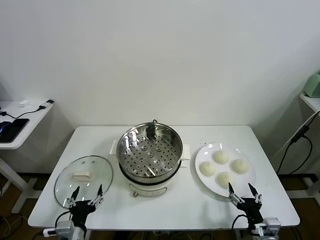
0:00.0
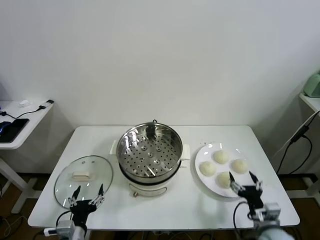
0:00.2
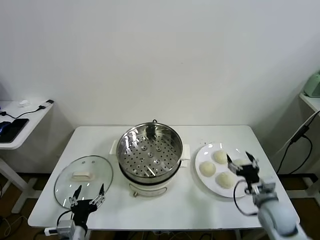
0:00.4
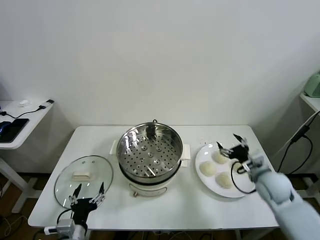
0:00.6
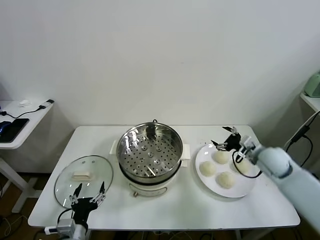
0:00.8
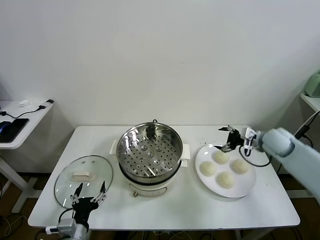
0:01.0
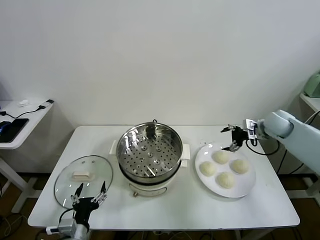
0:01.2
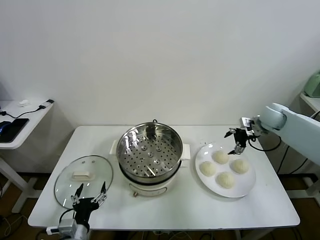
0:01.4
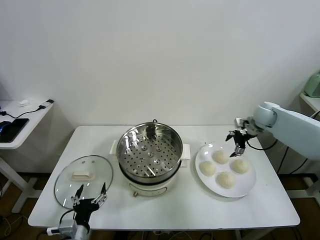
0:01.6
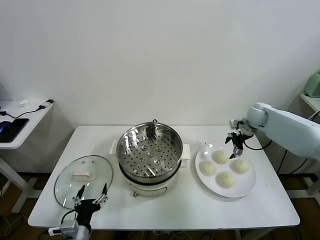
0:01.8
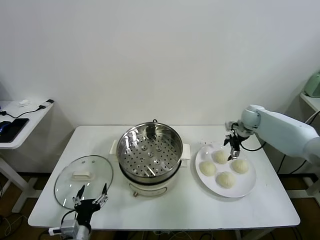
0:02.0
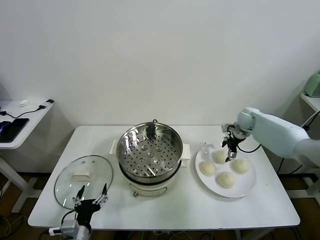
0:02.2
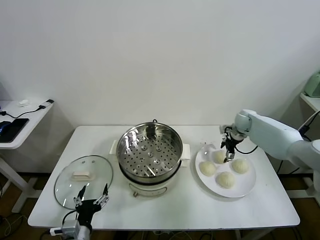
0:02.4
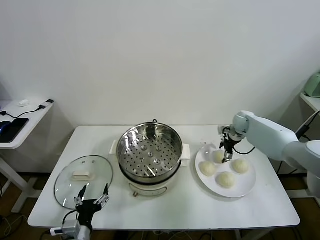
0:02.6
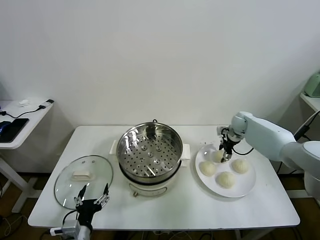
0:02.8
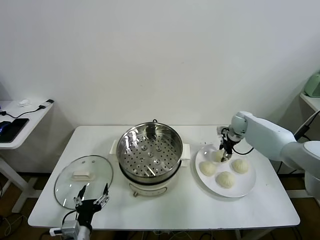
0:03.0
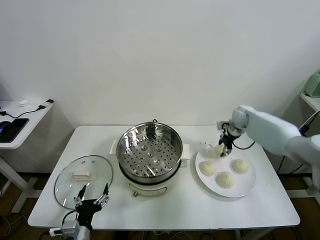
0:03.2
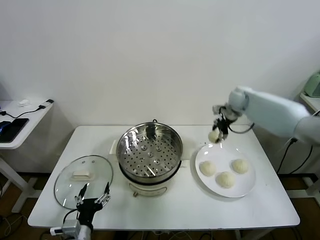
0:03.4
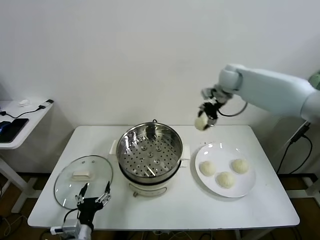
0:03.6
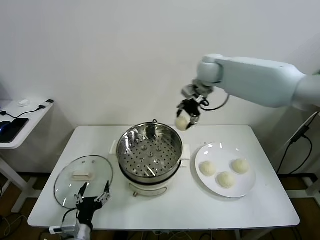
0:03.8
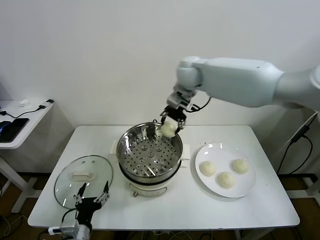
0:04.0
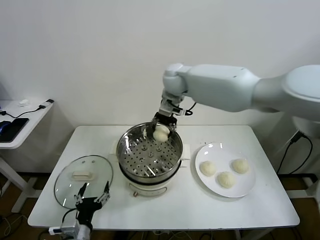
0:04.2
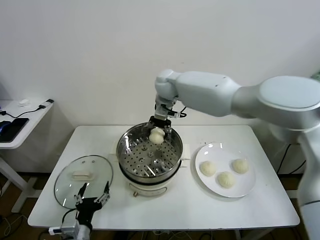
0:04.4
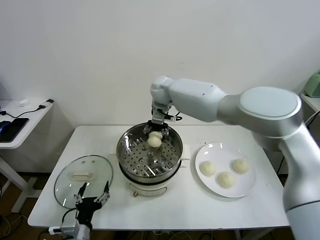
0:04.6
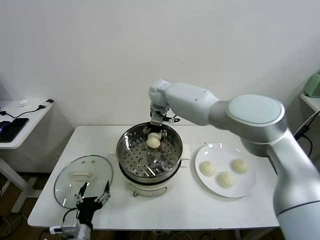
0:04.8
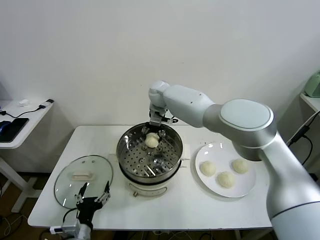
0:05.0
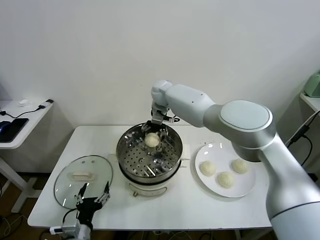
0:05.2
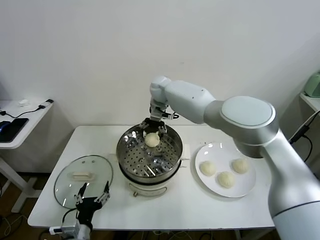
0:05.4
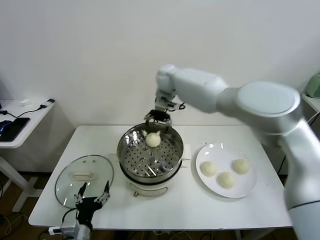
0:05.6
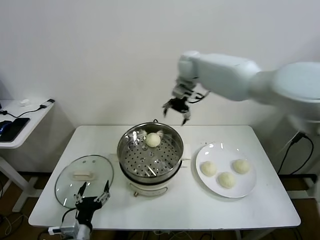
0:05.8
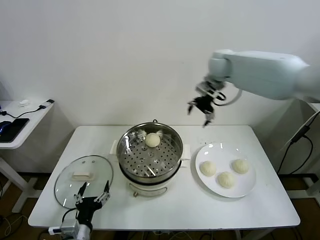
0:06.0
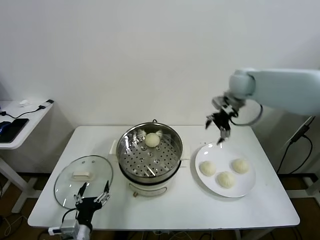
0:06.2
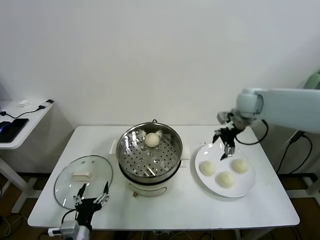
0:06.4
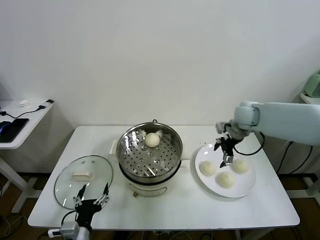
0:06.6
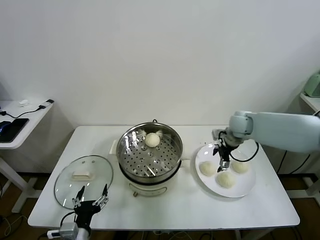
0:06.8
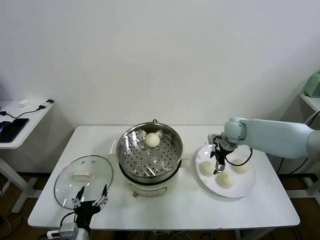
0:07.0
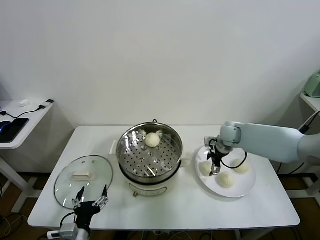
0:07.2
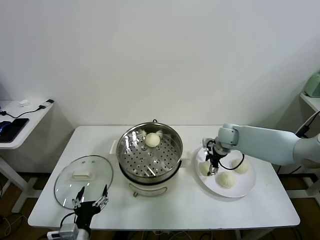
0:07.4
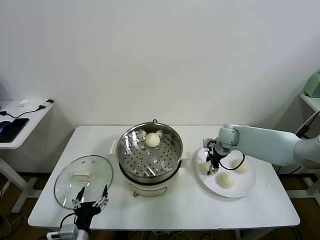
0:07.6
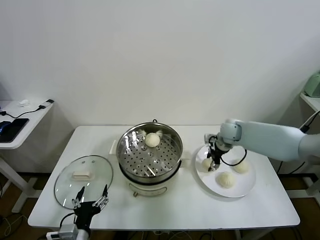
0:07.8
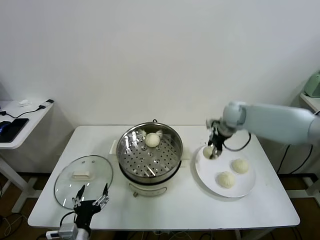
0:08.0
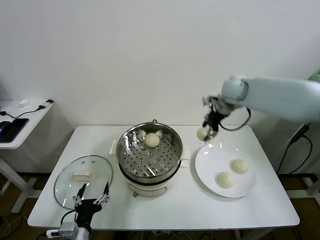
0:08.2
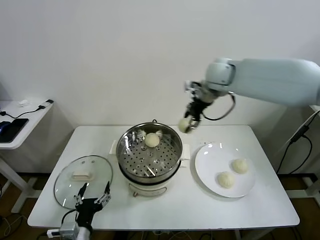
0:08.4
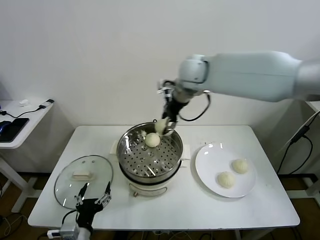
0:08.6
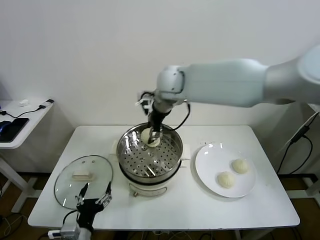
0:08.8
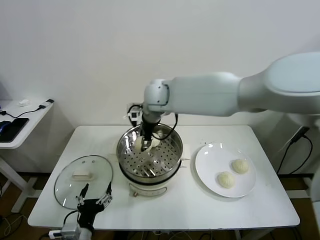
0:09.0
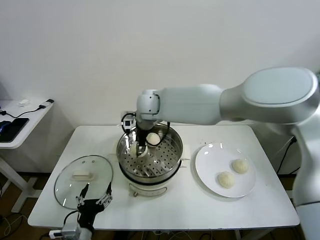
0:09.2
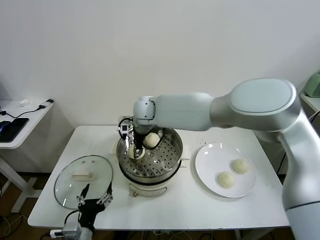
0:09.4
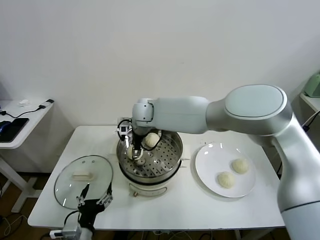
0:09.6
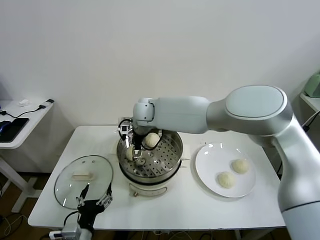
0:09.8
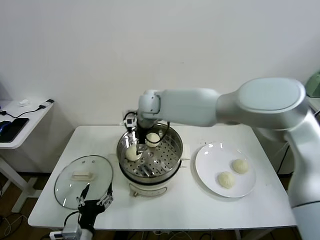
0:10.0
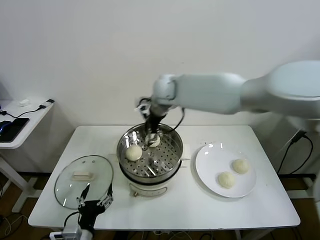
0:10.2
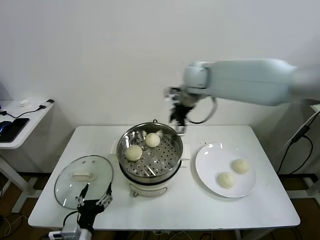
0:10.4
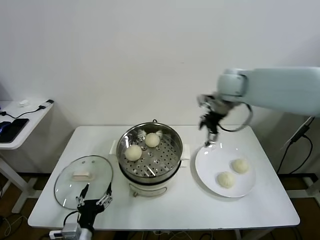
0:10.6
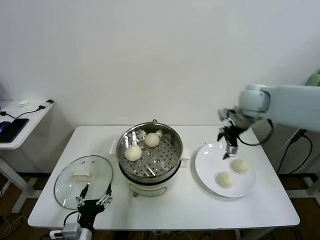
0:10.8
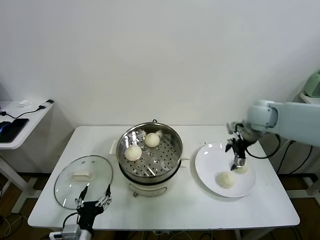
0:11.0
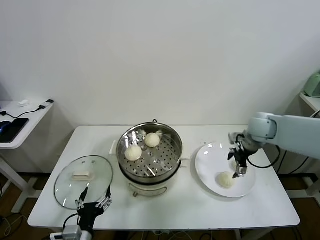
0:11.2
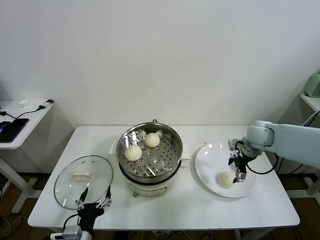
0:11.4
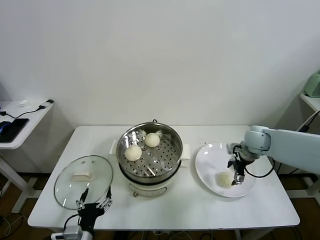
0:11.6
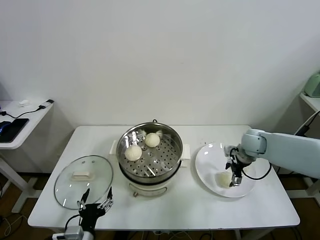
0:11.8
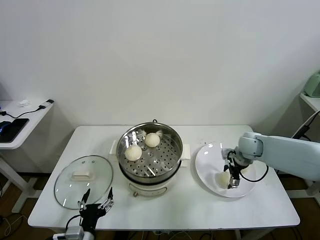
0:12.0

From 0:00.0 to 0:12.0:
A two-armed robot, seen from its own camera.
Task of the whole recording: take steamed baozi put them in steamer.
Step, from 0:00.0 to 0:02.6: Grasp the baozi in the plate with right gripper.
Step, from 0:03.0 to 0:05.2: Place the baozi on the steamer with right gripper.
Step, from 0:05.4 to 0:07.4: Grasp the baozi in the plate with right gripper.
Step, from 0:07.6 to 0:09.8: Place the baozi on the steamer with right gripper.
From 0:01.6 to 0:03.0: The right gripper travels downward by roughly 5 cm, and closes its fingers.
From 0:03.0 to 0:04.4: The right gripper goes approximately 40 cm to the left and upward.
From 0:04.4 to 0:06.0: The right gripper moves to the right, some 25 cm, and opens.
From 0:06.0 to 0:07.6: The right gripper goes some 25 cm downward, and closes.
From 0:07.6 to 0:09.0: The right gripper shifts about 35 cm to the left and upward.
From 0:09.0 to 0:10.4: The right gripper is displaced to the right by about 15 cm, and opens up.
From 0:10.4 to 0:12.0: The right gripper moves downward and to the right, roughly 30 cm.

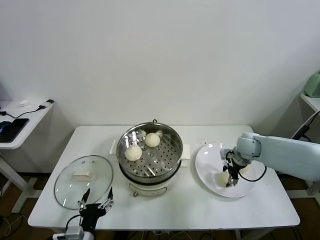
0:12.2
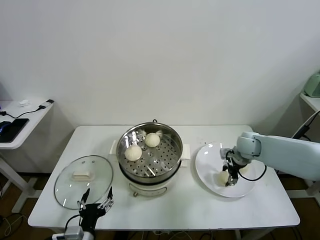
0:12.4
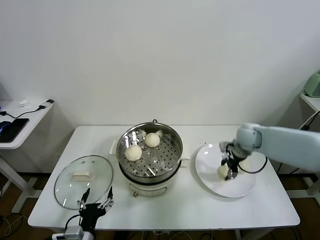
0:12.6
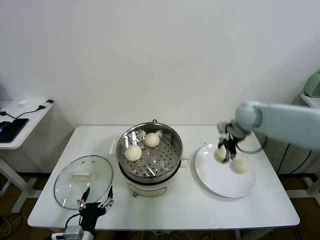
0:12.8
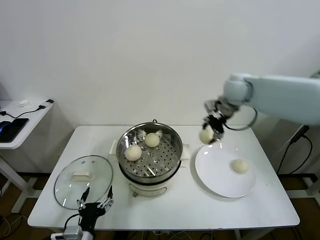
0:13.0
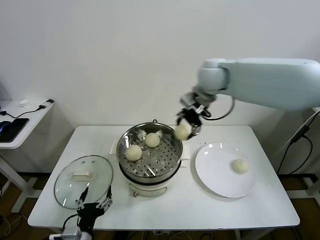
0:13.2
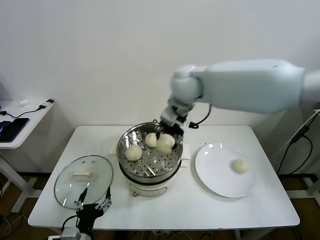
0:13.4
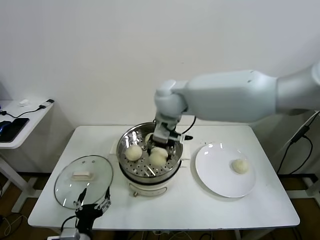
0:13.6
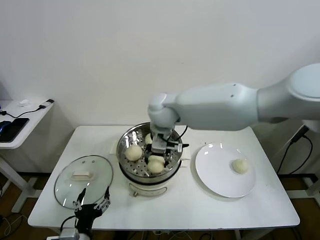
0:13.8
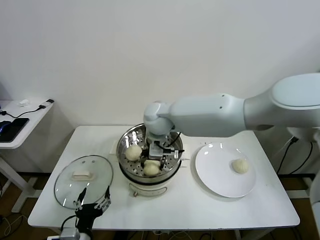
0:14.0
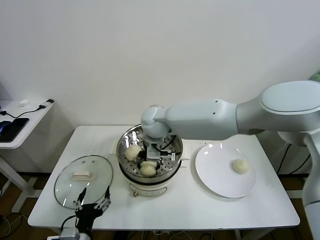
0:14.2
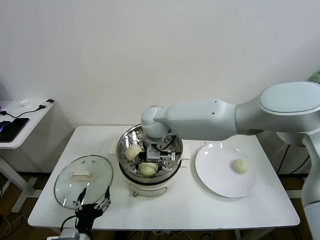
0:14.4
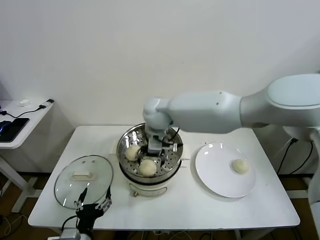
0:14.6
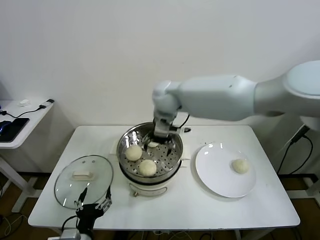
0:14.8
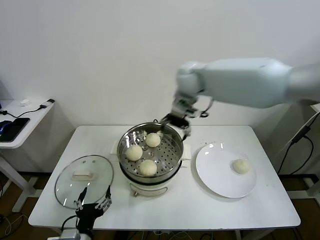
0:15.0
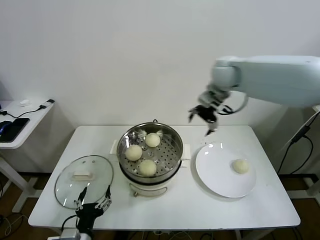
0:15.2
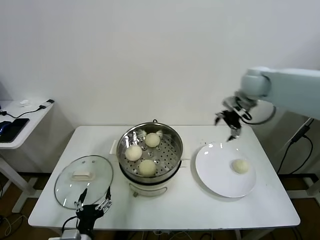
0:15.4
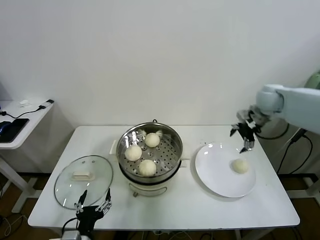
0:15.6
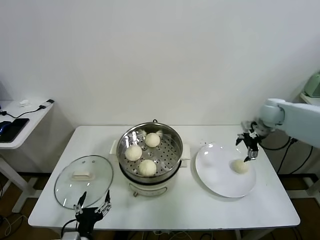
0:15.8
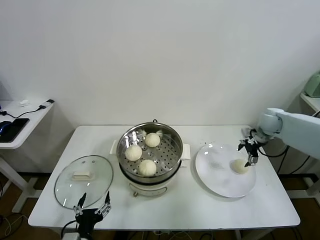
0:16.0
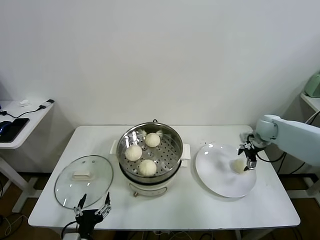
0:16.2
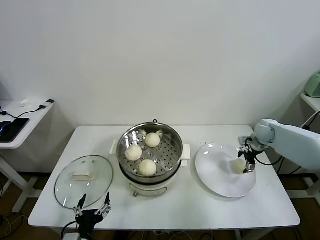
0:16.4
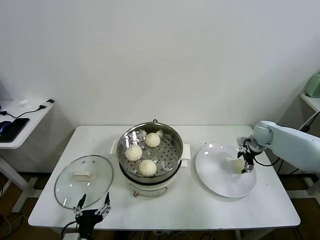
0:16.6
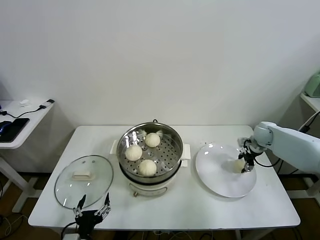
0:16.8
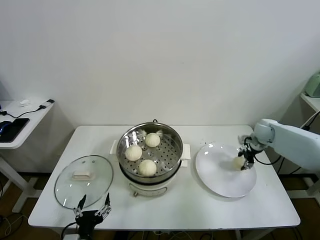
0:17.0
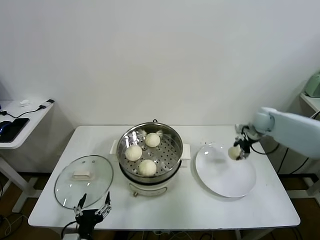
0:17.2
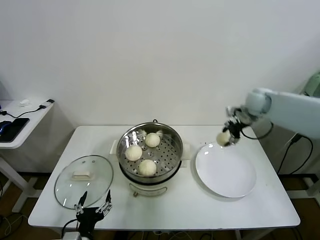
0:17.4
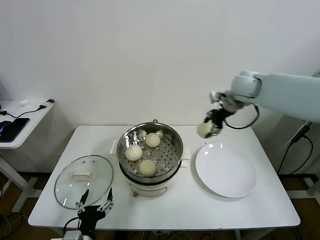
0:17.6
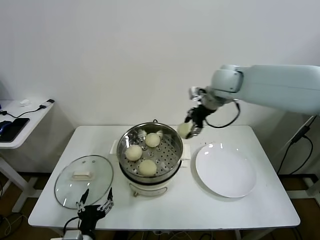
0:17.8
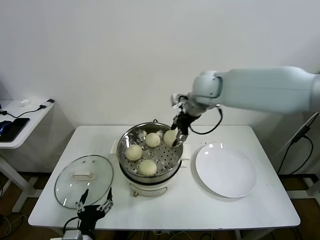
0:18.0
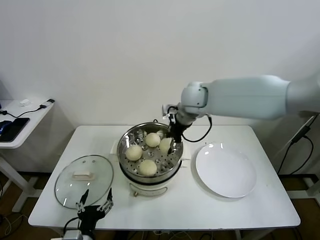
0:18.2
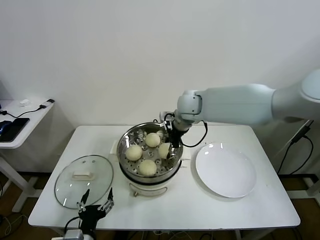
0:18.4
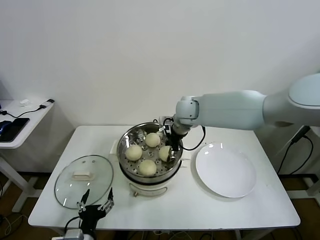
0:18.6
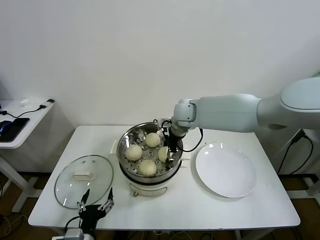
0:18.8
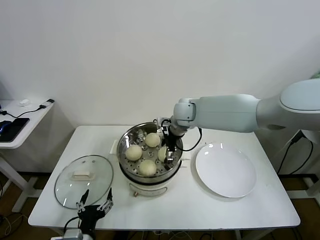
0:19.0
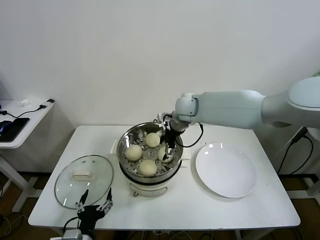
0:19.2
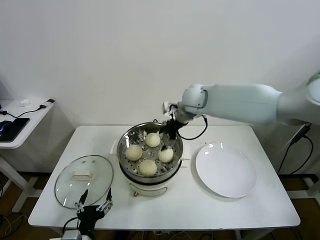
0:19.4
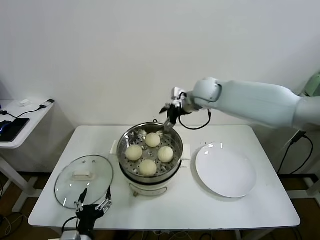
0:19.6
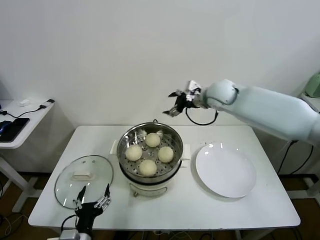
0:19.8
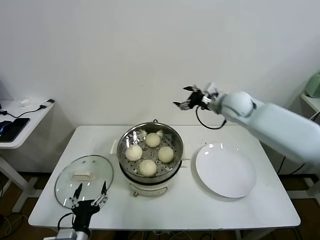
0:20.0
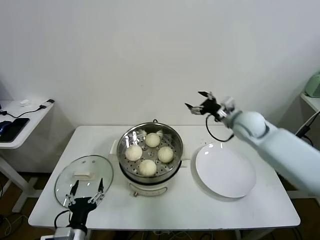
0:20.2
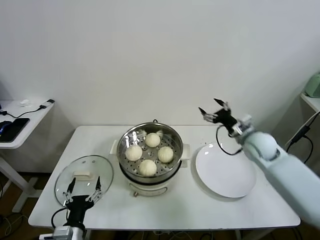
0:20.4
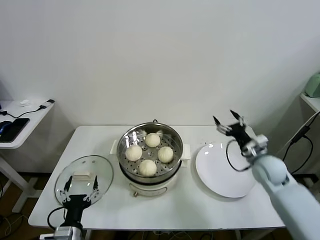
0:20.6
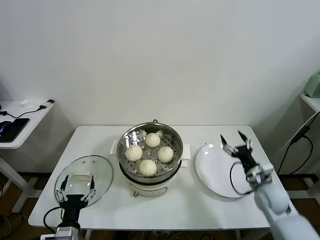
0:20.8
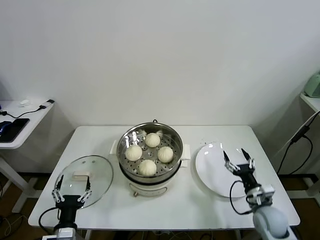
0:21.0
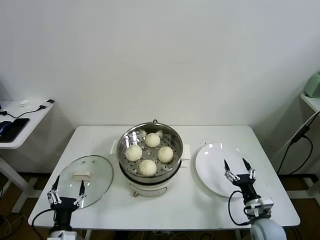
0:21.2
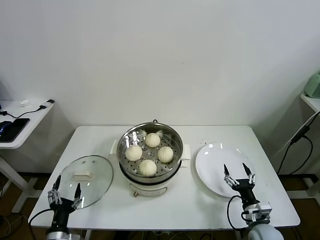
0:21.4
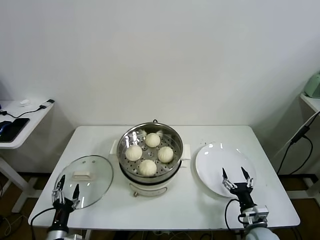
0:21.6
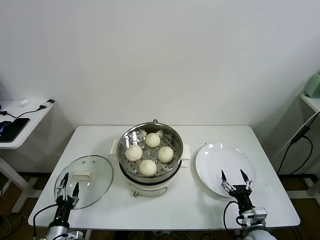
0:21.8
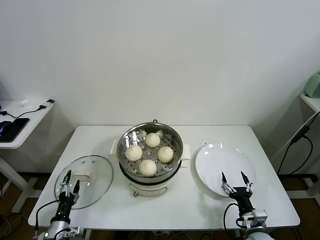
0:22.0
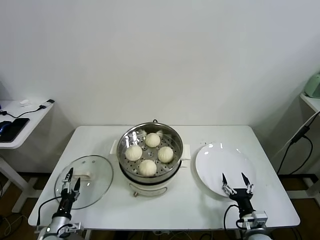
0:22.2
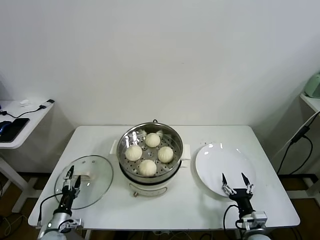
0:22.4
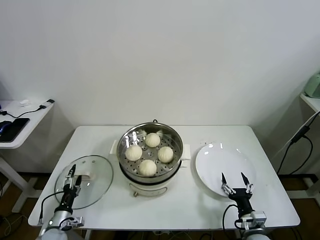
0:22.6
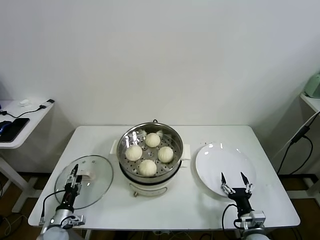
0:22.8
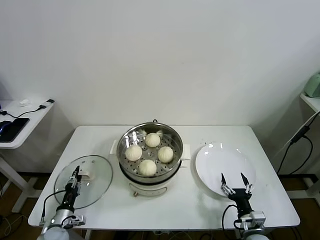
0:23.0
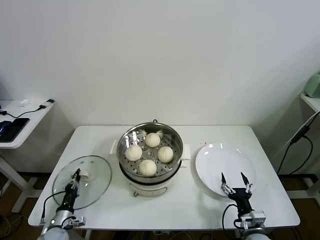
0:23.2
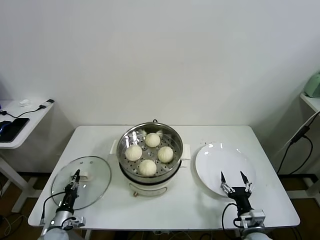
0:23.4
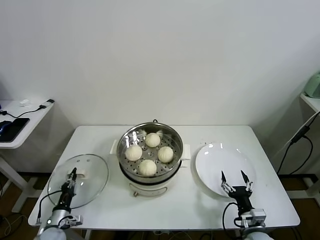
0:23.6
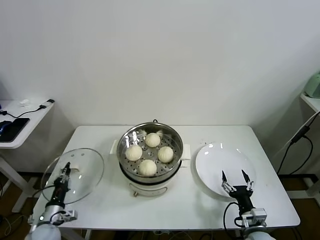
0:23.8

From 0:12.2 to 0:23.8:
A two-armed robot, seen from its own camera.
Task of the whole recording: take steamed baozi put them in steamer.
Step, from 0:12.4 to 0:14.4: Place the baozi on the steamer with right gripper.
Step, from 0:14.6 to 0:16.6: Grasp the baozi in the plate with right gripper.
Step, from 0:16.8 to 0:18.8: Place the baozi on the steamer with right gripper.
Step, from 0:19.0 to 0:23.2: Grasp the pot lid with left gripper.
From 0:12.2 to 0:13.6: The right gripper goes about 40 cm to the left and upward.
From 0:13.6 to 0:15.0: The right gripper goes some 10 cm to the right and forward, and opens its fingers.
From 0:15.0 to 0:16.6: The right gripper shifts roughly 40 cm to the right and downward.
From 0:16.6 to 0:18.0: The right gripper travels to the left and upward by approximately 35 cm, and closes its fingers.
From 0:18.0 to 0:19.4: The right gripper travels downward by approximately 5 cm, and opens up.
From 0:19.4 to 0:21.0: The right gripper moves downward, backward and to the right, some 50 cm; the left gripper shifts by approximately 5 cm.
From 0:21.0 to 0:22.4: The left gripper heads downward, to the left and forward, covering approximately 15 cm; the right gripper is displaced backward by approximately 10 cm.
From 0:22.4 to 0:23.8: The left gripper closes its fingers.
